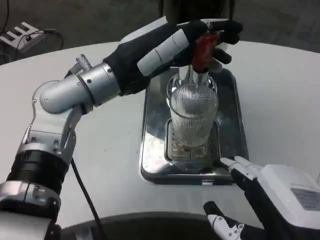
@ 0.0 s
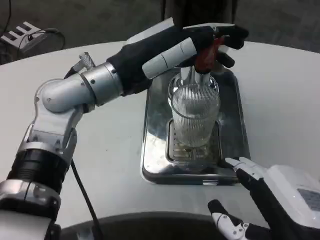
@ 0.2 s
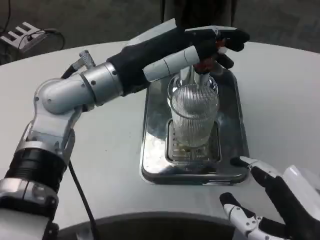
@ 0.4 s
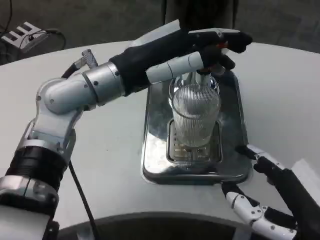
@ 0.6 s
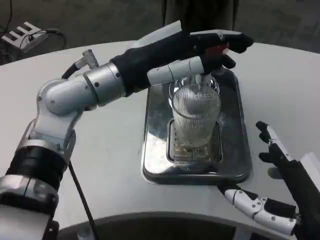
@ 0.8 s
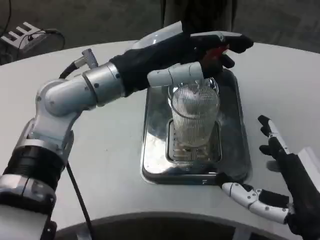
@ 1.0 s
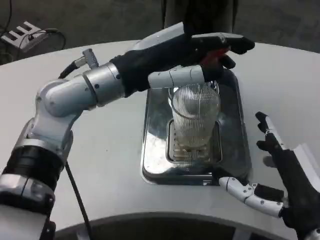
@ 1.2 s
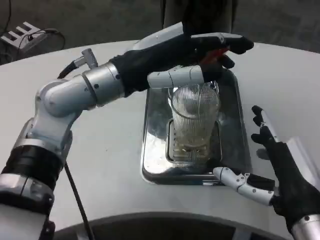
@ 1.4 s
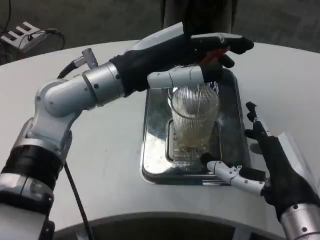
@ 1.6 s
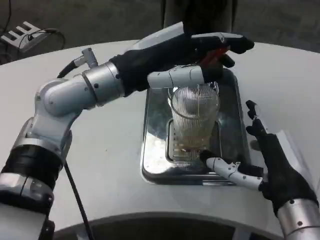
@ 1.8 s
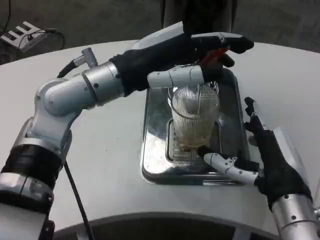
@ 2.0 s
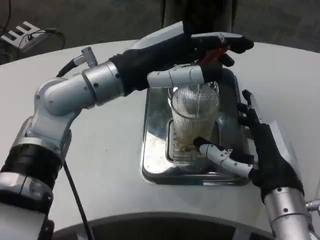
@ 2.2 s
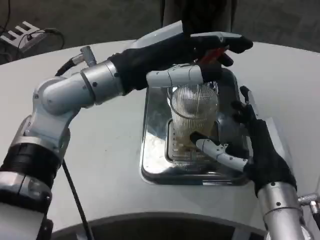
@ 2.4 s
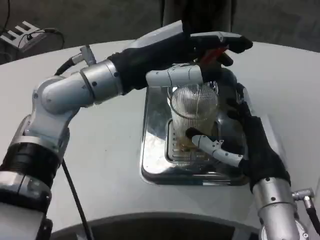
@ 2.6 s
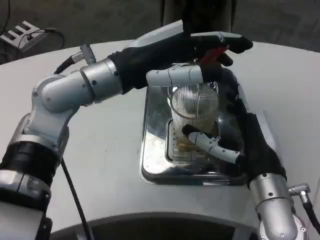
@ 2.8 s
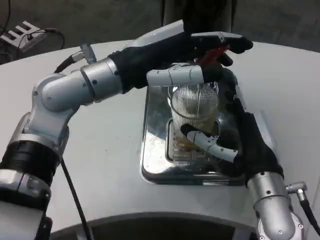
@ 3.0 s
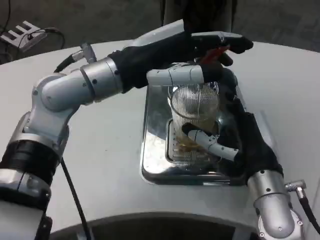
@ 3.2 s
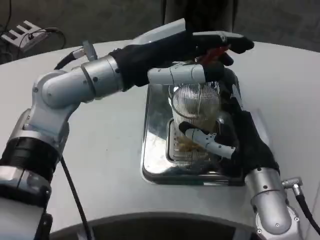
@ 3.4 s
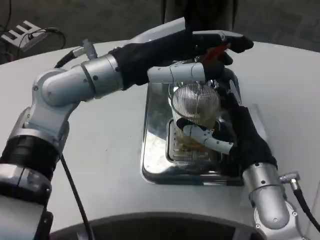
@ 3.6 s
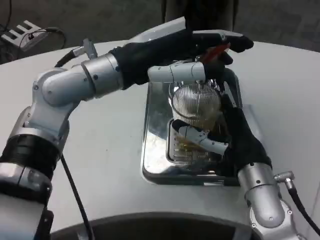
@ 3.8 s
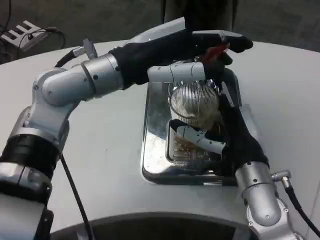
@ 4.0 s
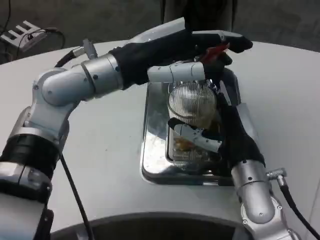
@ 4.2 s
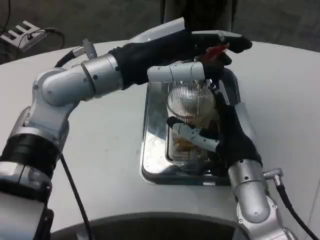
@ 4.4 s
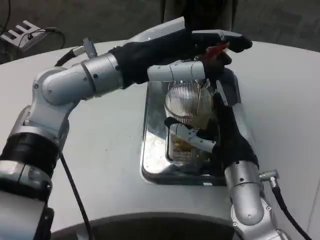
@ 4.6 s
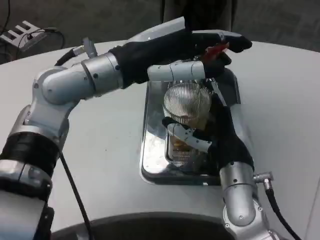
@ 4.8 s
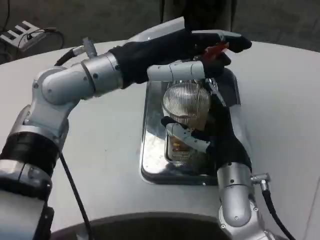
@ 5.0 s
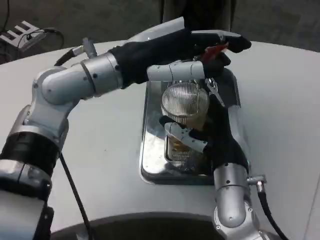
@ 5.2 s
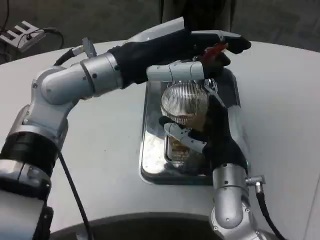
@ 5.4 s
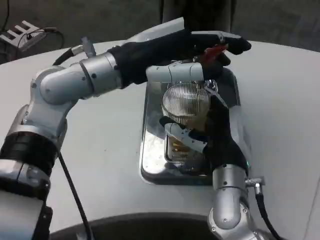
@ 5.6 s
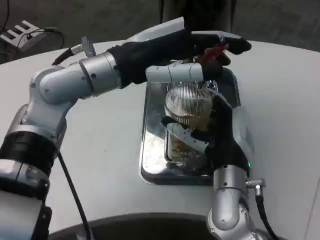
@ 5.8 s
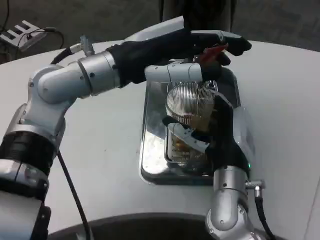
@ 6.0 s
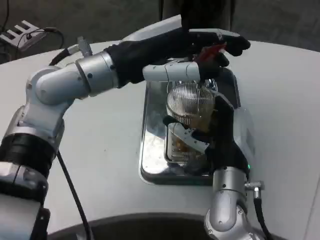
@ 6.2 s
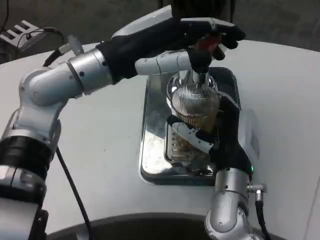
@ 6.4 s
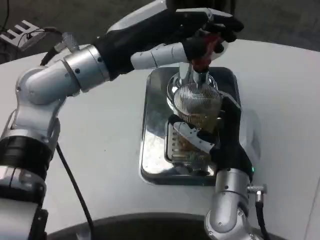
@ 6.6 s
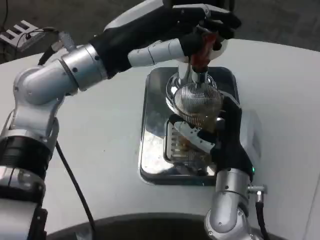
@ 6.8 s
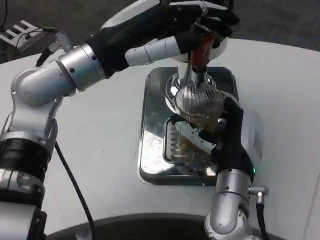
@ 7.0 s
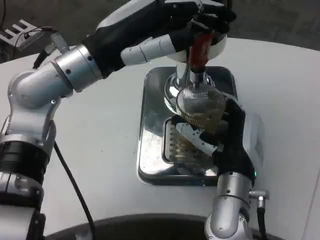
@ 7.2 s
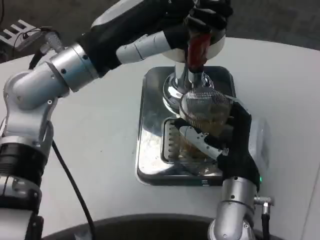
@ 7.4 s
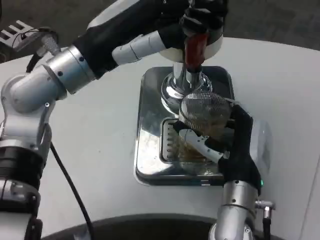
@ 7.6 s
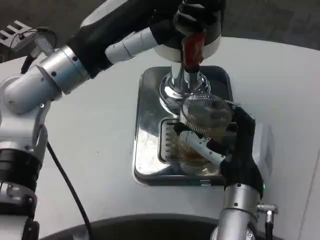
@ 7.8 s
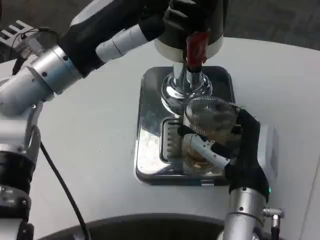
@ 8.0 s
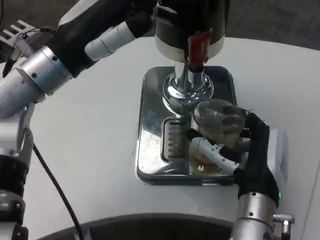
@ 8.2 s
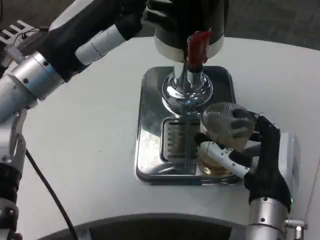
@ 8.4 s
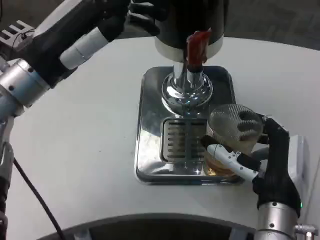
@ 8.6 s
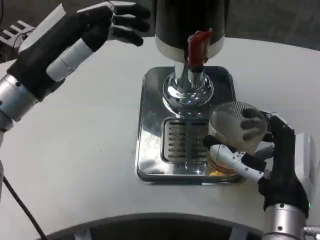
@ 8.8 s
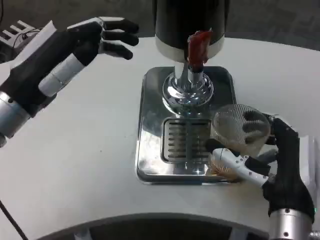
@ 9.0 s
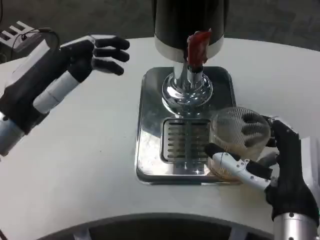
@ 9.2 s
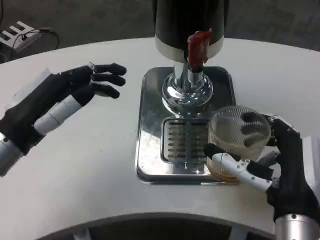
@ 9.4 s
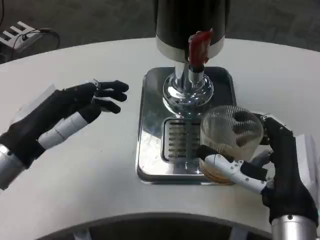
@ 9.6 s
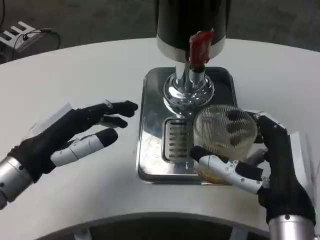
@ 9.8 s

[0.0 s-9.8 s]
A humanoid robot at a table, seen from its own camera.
Task of the whole recording: Grasp the cup under the faucet to collect the drink, then remove the cup.
0.0 to 1.4 s: The right hand shifts roughly 5 cm forward.
1.4 to 2.8 s: The right hand travels forward by roughly 10 cm.
4.2 to 5.6 s: The hands make only small movements.
7.0 to 8.4 s: The right hand ends up roughly 5 cm from where it was. Meanwhile the left hand shifts by roughly 5 cm.
8.4 to 9.8 s: The left hand travels downward and backward by approximately 10 cm. Meanwhile the right hand heads backward, covering roughly 5 cm.

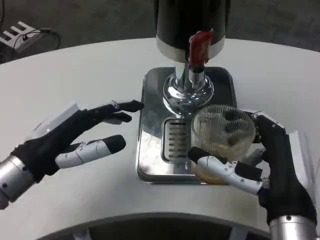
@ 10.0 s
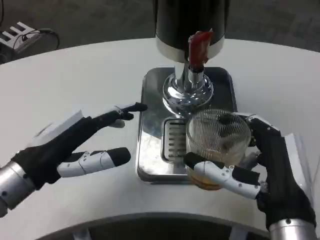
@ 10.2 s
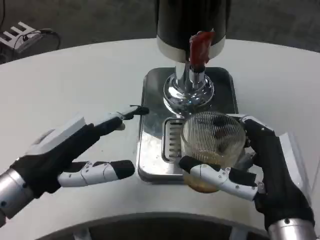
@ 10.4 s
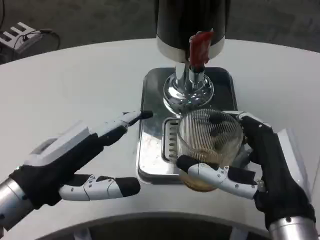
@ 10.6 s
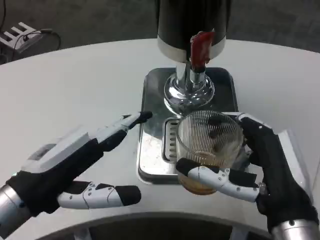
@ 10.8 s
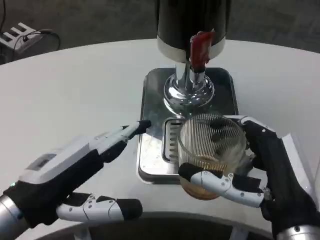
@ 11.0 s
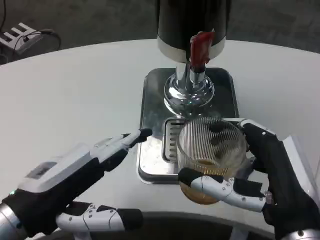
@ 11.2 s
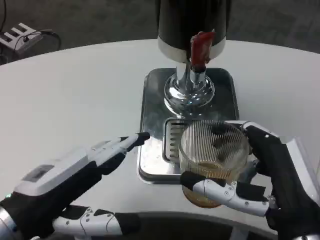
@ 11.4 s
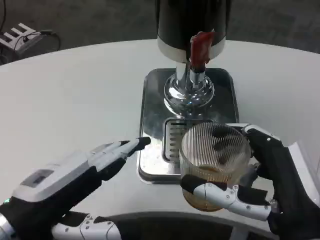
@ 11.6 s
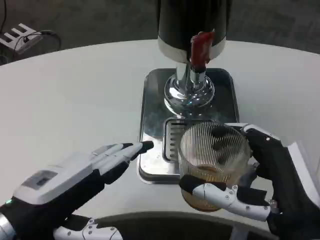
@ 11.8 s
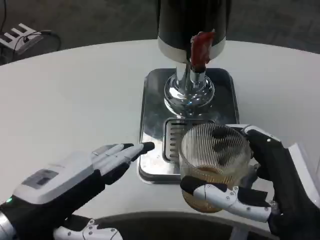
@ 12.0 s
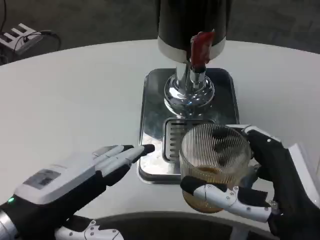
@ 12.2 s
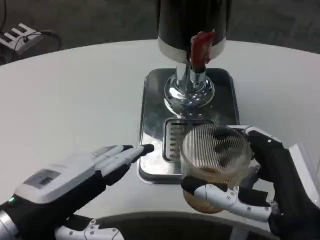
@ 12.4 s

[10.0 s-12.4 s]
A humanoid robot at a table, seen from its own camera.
Task of the whole recording: Grasp the cup under the faucet to collect the drink, then remove the cup.
10.0 to 11.2 s: The left hand shifts some 5 cm backward.
11.2 to 12.4 s: The hands stay close to where they were, moving slightly.
